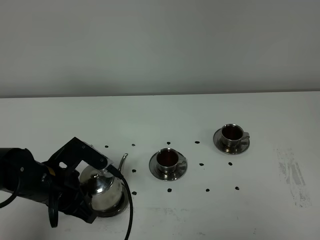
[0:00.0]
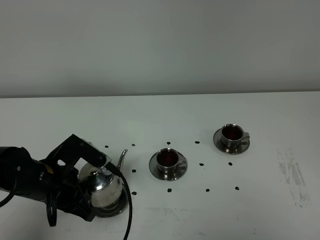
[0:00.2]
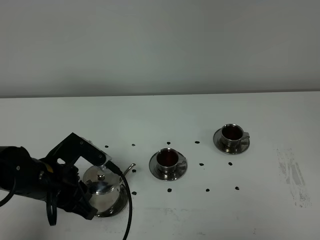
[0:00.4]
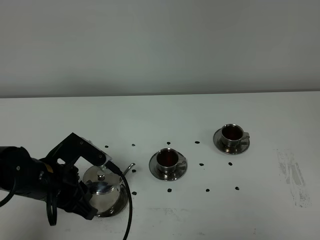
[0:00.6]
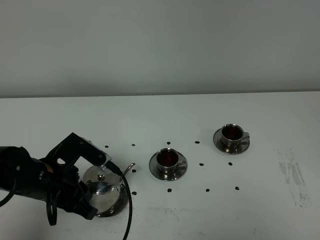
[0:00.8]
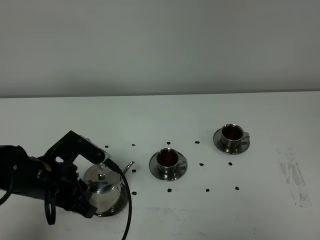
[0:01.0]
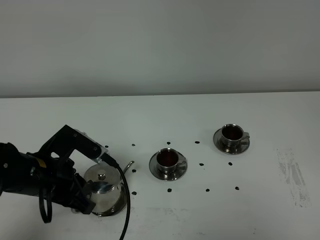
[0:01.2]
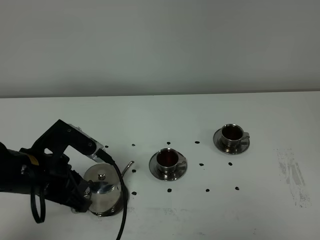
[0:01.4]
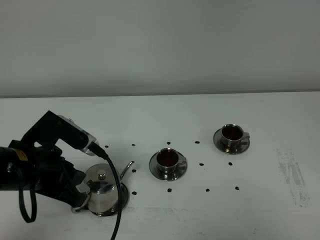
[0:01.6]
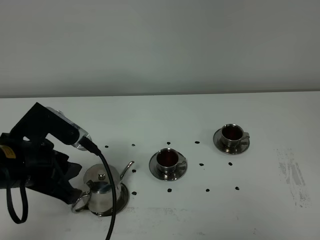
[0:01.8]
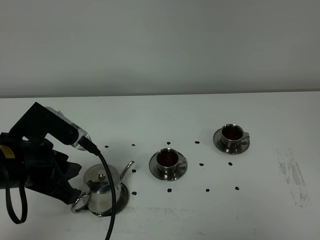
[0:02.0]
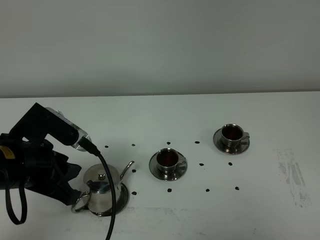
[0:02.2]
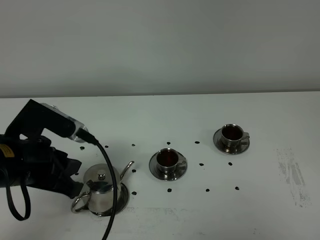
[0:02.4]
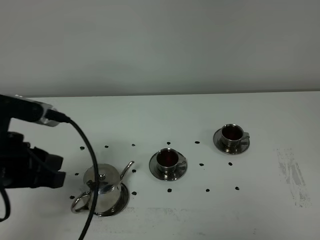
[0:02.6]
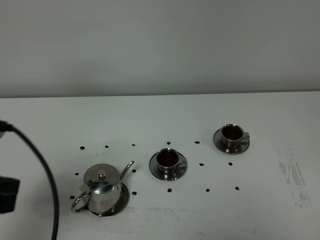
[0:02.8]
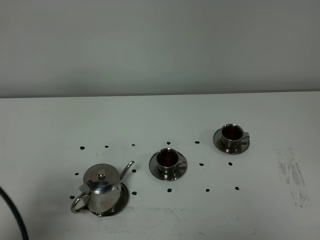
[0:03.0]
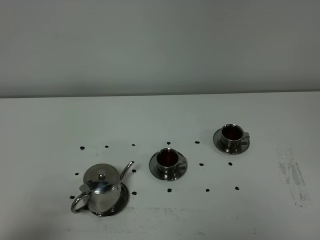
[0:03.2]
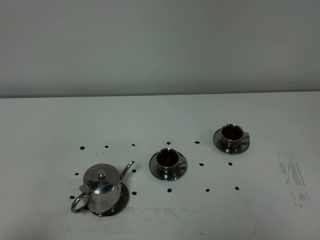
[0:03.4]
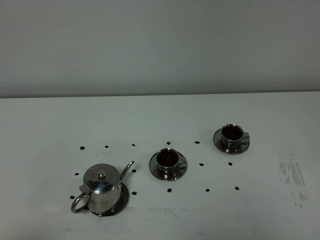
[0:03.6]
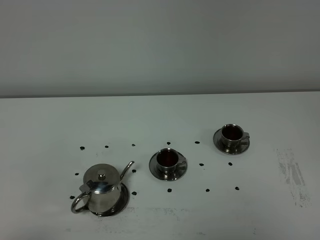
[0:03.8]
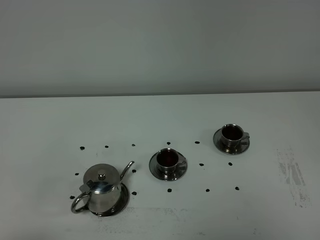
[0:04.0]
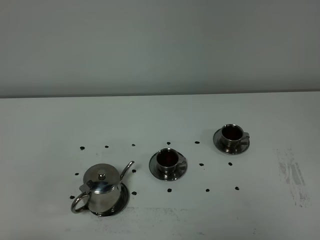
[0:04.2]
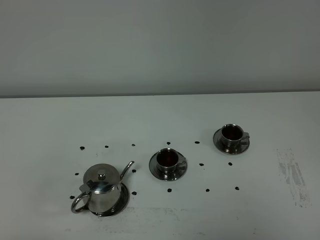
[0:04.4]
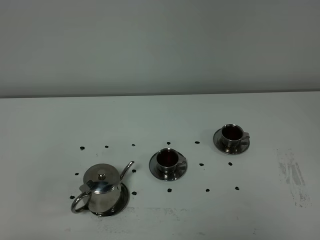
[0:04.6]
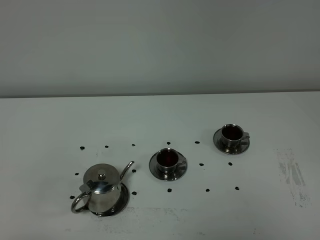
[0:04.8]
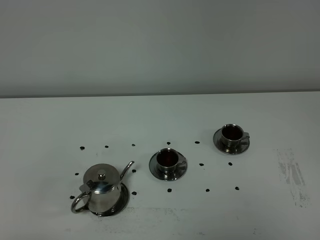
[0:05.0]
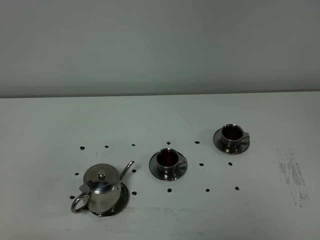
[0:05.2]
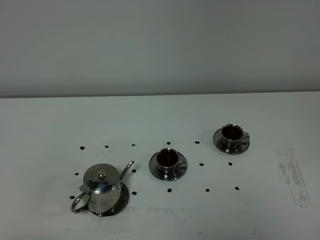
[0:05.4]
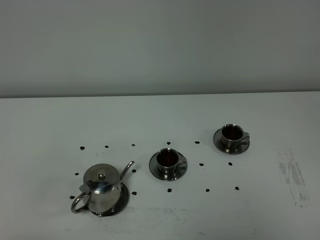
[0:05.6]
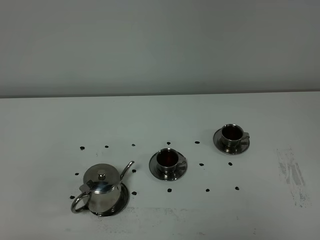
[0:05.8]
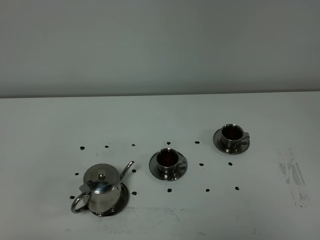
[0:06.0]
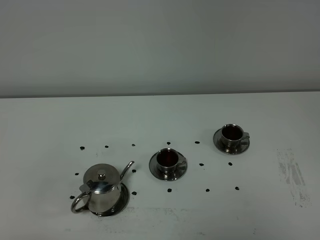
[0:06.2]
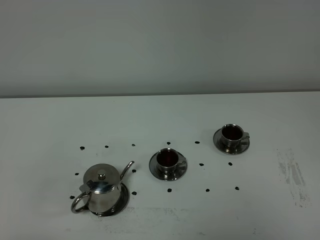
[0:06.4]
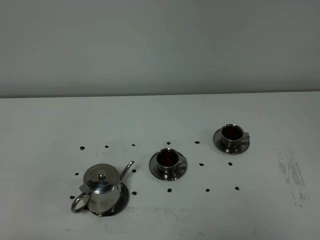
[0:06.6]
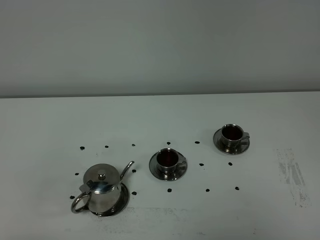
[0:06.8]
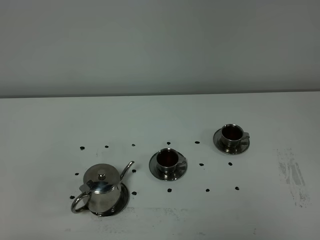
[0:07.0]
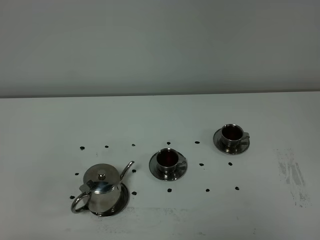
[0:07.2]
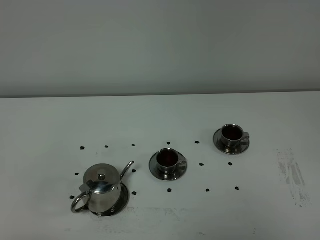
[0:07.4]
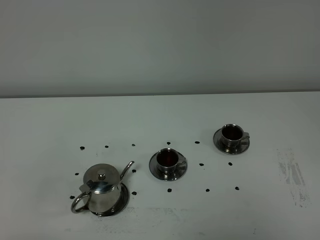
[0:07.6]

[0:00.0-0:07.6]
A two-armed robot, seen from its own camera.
Task of the whole recording: grasp the stainless steel teapot and pour the tea into the two stainless steel teacups one by one, put the stainless steel teapot back in its original place.
0:00.0 to 0:01.6: The left gripper heads upward, covering about 10 cm.
0:01.6 to 0:03.0: The left gripper moves backward, upward and to the left, about 20 cm.
0:03.0 to 0:04.6: The left gripper is displaced backward and downward by roughly 10 cm.
0:04.6 to 0:07.6: Both grippers stay about where they are.

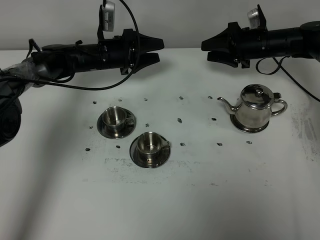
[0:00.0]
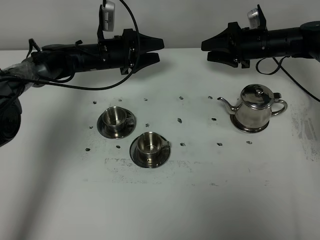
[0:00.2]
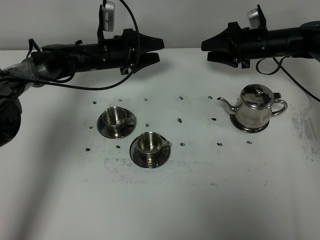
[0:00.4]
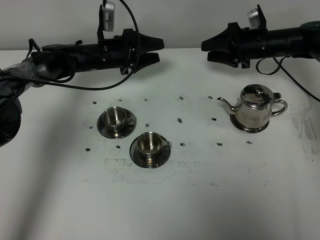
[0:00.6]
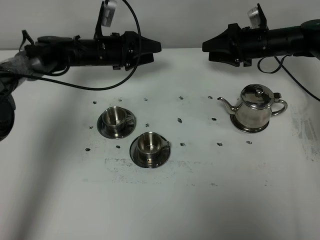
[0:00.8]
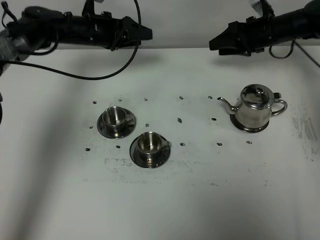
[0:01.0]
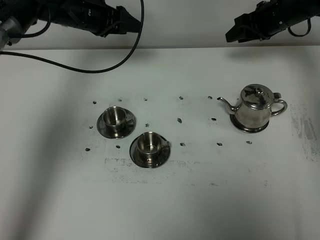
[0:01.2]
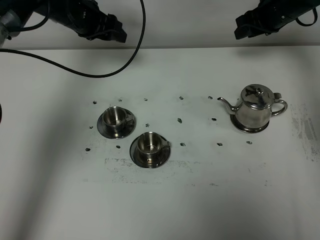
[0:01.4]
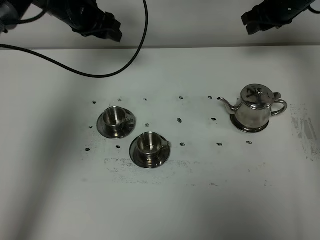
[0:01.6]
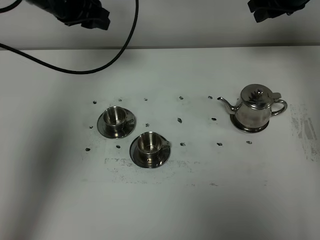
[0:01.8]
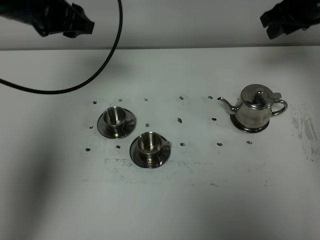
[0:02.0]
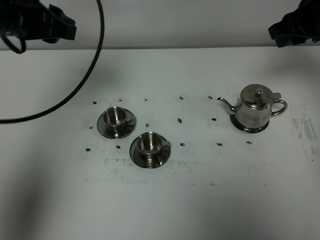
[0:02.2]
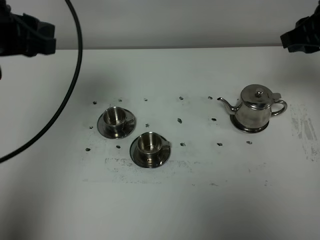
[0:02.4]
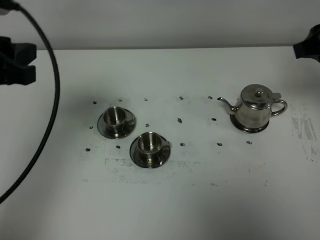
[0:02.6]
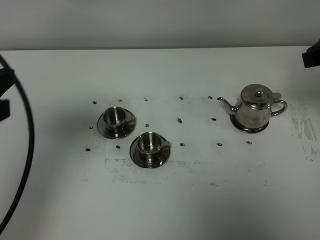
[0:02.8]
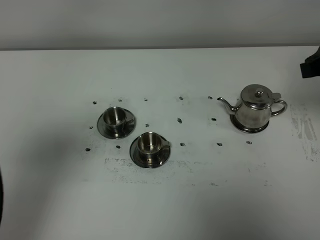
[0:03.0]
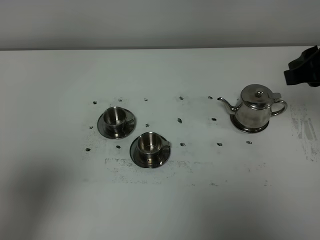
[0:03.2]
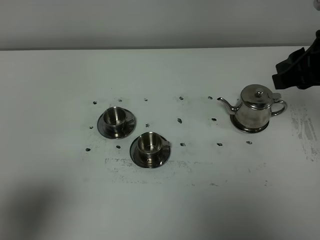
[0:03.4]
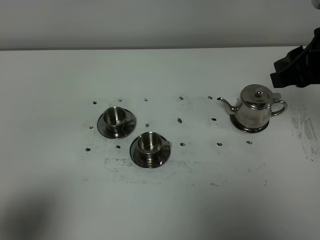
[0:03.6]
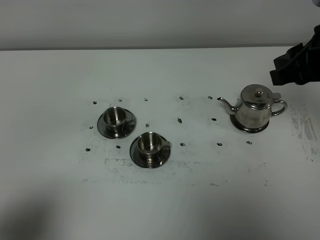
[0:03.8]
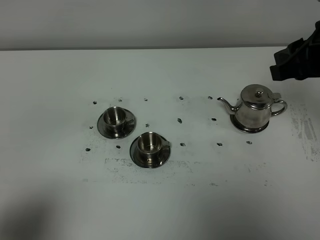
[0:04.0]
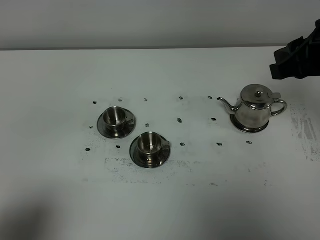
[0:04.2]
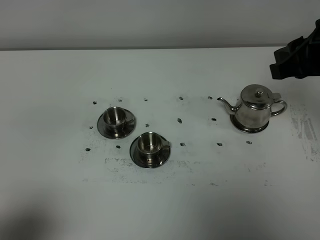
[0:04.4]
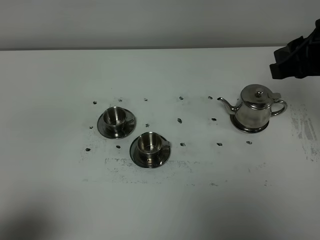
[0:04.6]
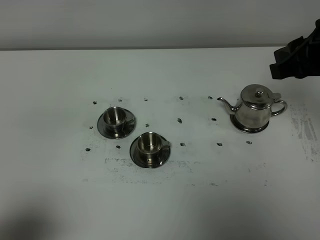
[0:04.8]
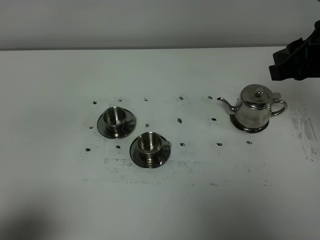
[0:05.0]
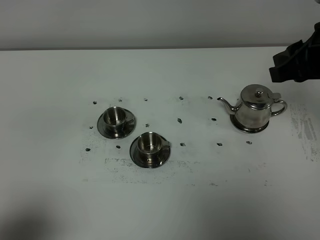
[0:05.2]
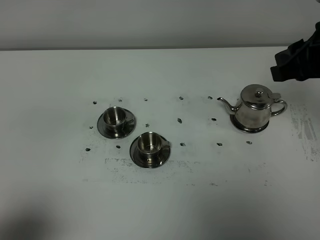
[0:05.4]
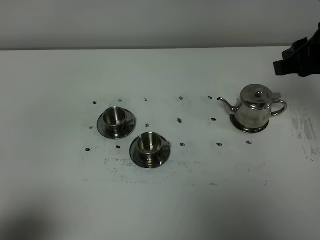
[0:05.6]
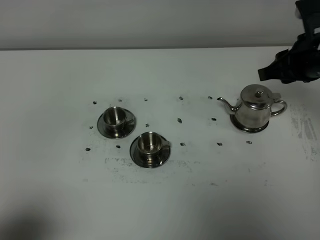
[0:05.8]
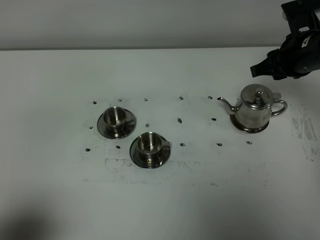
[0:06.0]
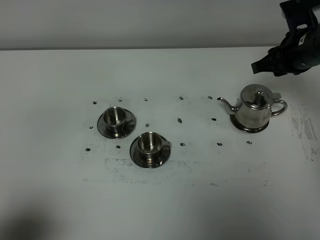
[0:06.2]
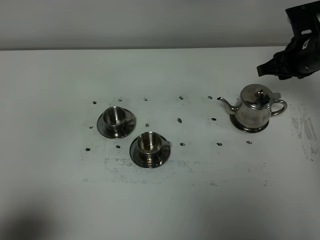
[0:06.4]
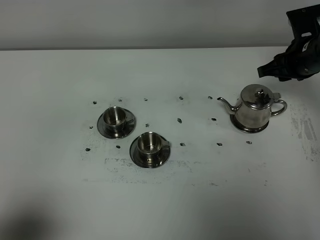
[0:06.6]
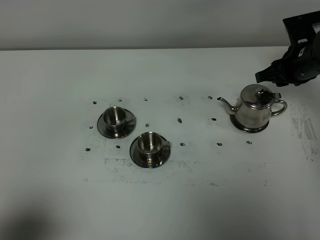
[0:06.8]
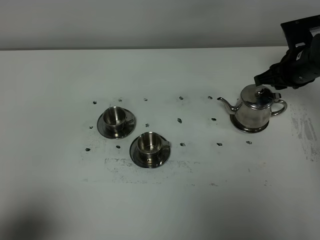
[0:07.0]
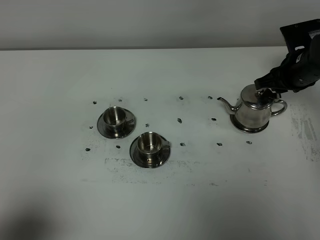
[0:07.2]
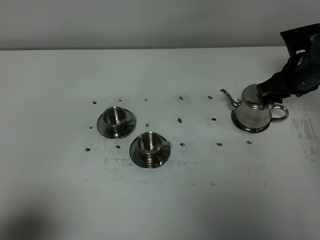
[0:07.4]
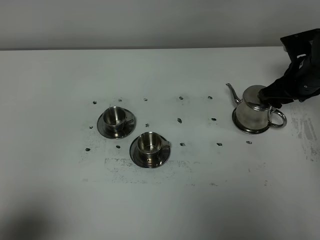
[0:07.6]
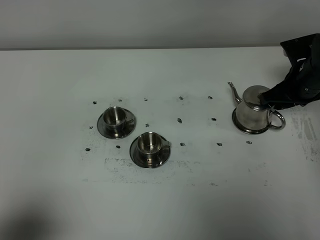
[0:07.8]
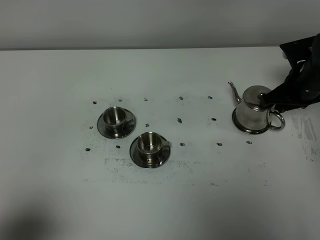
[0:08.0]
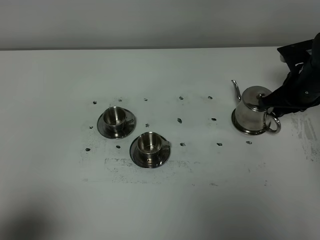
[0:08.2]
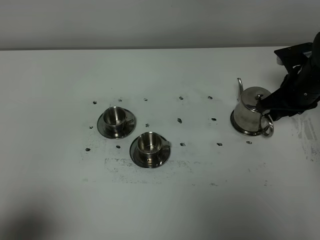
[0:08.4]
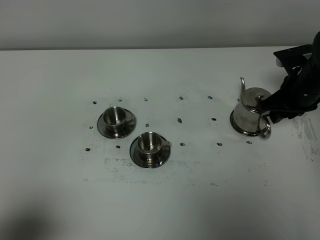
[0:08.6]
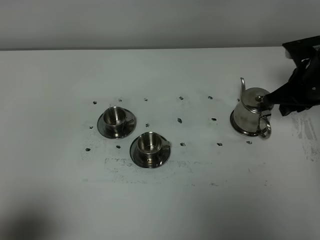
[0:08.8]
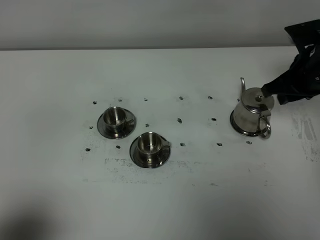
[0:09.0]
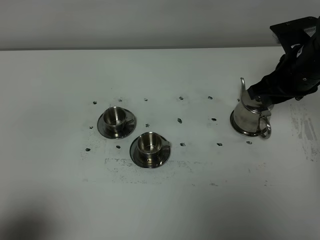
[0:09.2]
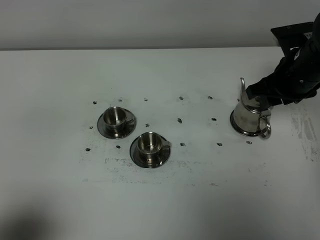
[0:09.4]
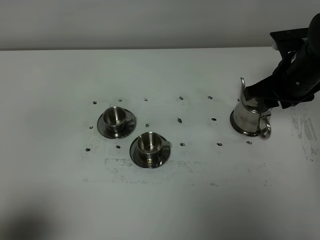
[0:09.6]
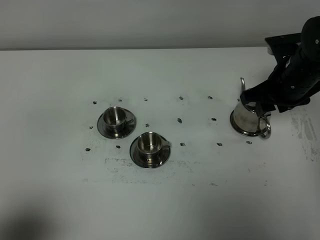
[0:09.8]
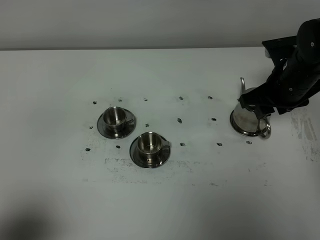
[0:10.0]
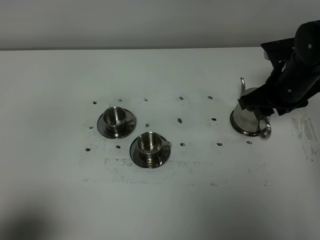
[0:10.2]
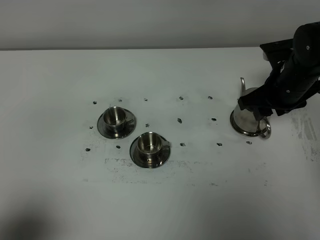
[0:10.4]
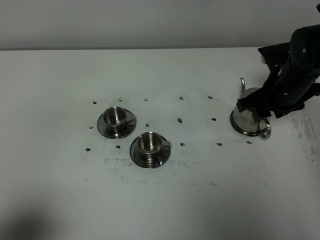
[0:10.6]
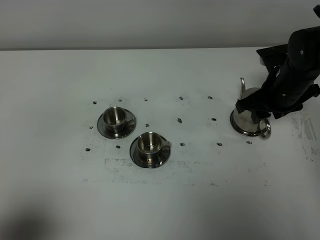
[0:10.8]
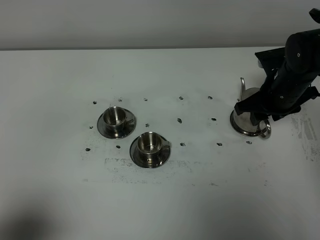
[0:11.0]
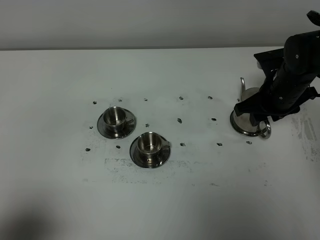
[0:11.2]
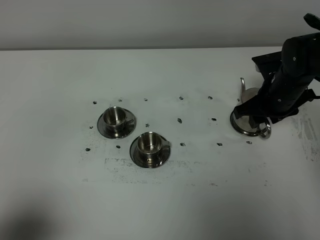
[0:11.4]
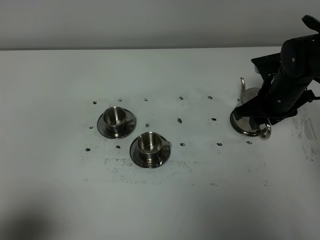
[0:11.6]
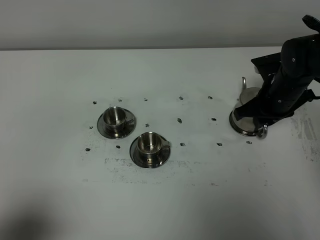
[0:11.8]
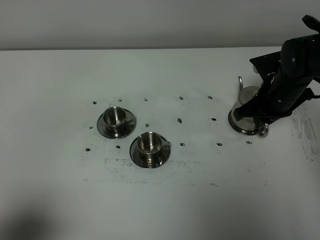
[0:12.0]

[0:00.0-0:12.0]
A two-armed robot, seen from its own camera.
Task of the whole recording: grasp the stainless steel teapot and pour the tea into the two stainless steel teacups one by one, put the stainless steel teapot back in its original place.
0:00.0 to 0:01.6: Both grippers move upward, some 15 cm.
0:01.6 to 0:03.0: The right gripper moves backward, approximately 25 cm. Meanwhile the left gripper goes roughly 40 cm backward, and closes up.
0:03.0 to 0:04.4: The left gripper moves backward and downward, some 15 cm.
0:04.4 to 0:06.0: The right gripper is displaced forward and downward by about 15 cm.
0:06.0 to 0:07.6: The right gripper goes about 5 cm downward.
0:07.6 to 0:09.0: The right gripper goes some 5 cm upward.
0:09.0 to 0:10.4: The right gripper moves roughly 5 cm.
0:10.4 to 0:12.0: The right gripper closes its fingers.

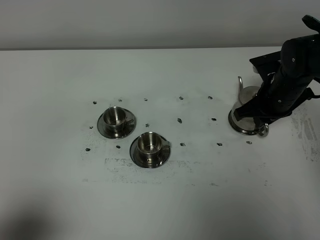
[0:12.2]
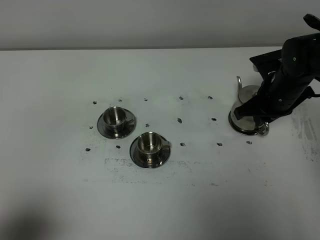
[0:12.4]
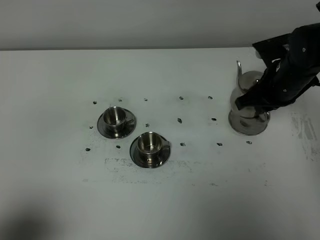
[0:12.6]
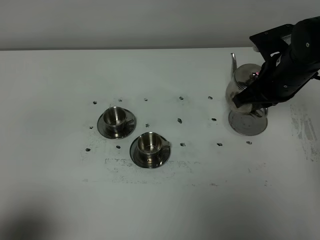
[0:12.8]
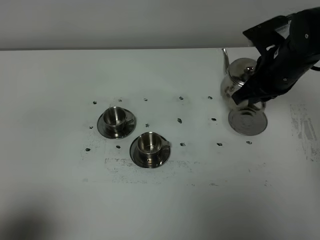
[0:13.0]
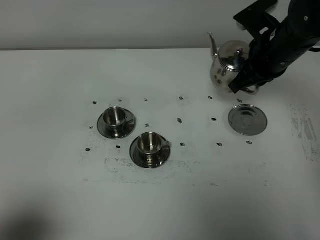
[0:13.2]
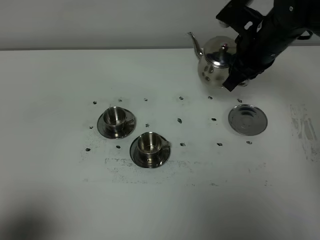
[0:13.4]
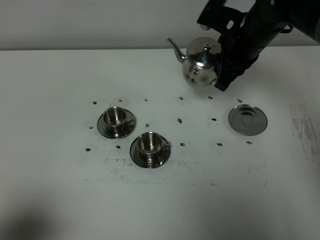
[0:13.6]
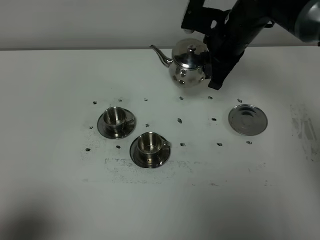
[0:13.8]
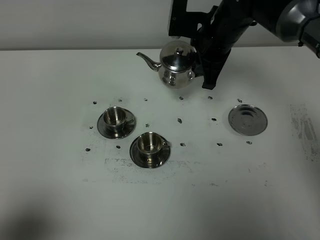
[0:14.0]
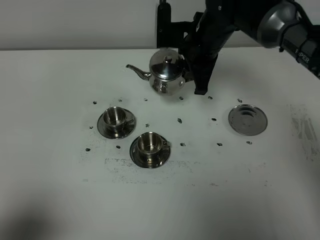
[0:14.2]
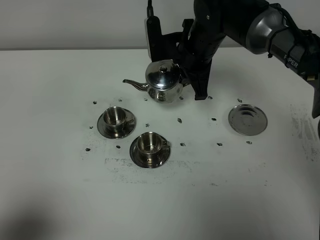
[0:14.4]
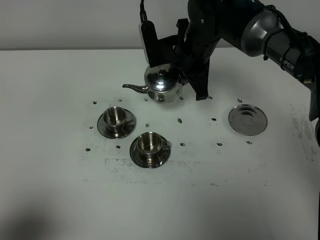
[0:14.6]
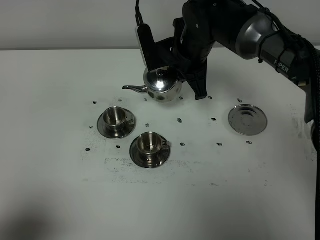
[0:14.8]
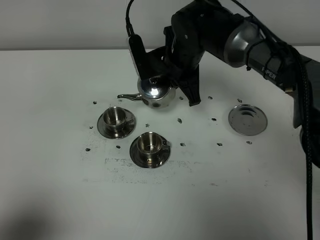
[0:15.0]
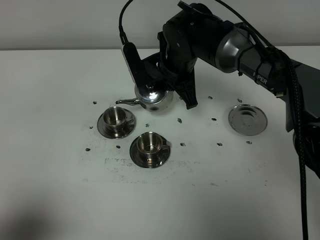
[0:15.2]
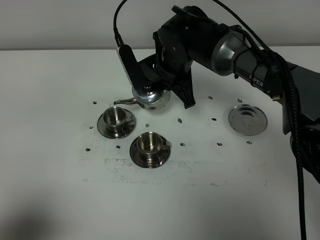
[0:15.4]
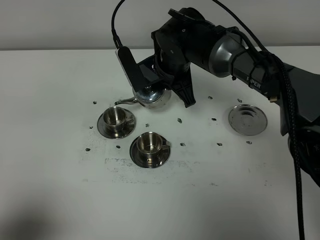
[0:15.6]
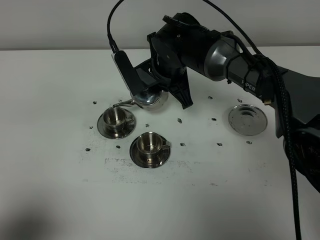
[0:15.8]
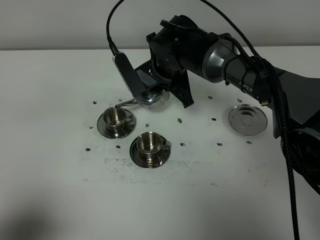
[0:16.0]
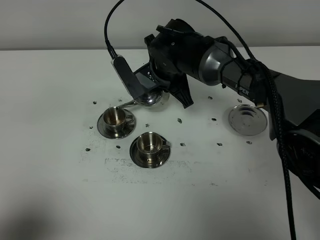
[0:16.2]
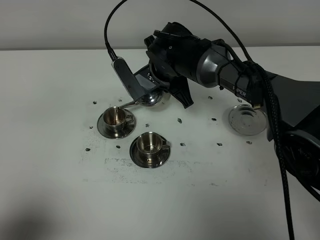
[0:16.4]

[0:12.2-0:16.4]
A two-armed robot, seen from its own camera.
Task of the whole recording: grasp the stainless steel teapot and pour the tea into the two stainless steel teacups one by one, put the stainless steel teapot back in its original place.
0:12.2 to 0:13.6: The right gripper is displaced upward and to the left by approximately 15 cm.
0:13.6 to 0:15.0: The right gripper is displaced to the left by approximately 10 cm.
